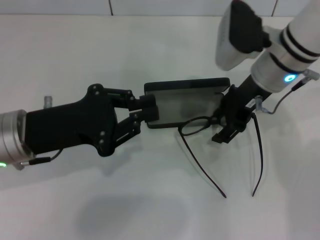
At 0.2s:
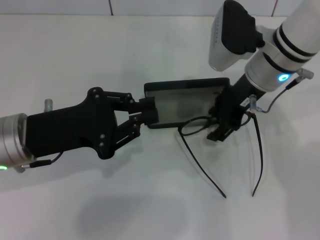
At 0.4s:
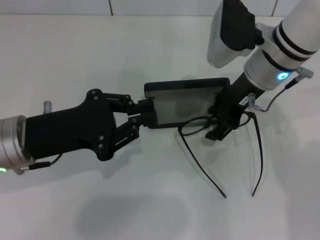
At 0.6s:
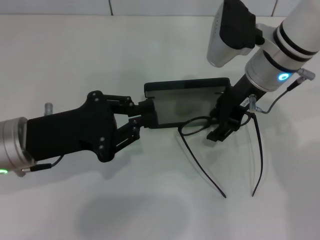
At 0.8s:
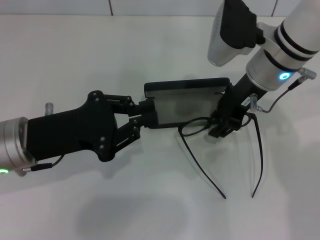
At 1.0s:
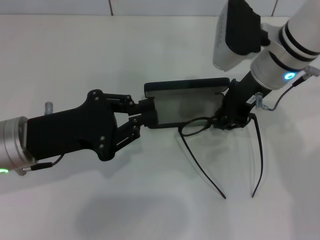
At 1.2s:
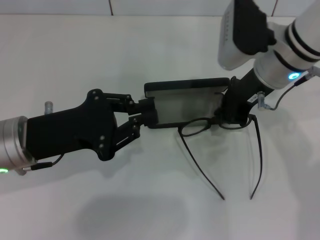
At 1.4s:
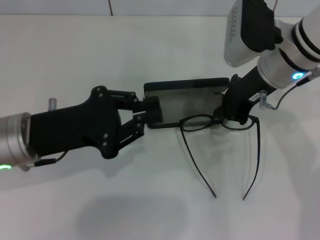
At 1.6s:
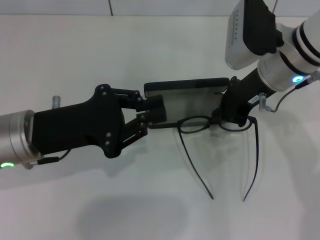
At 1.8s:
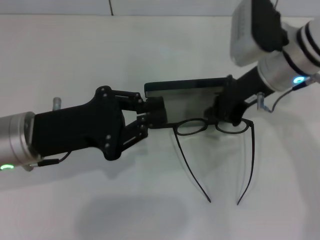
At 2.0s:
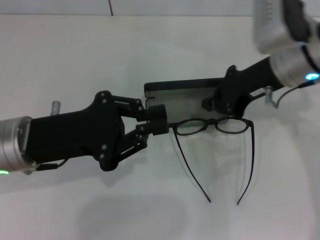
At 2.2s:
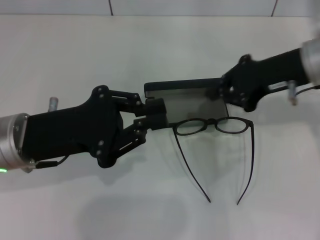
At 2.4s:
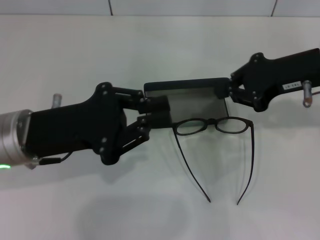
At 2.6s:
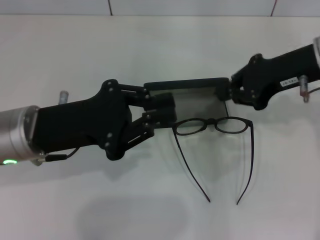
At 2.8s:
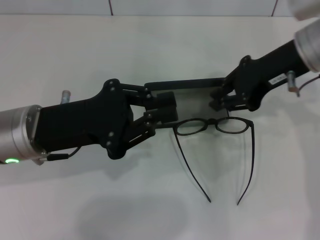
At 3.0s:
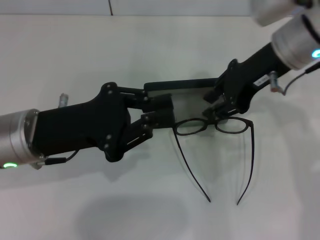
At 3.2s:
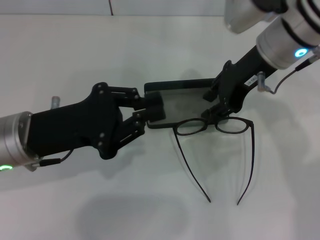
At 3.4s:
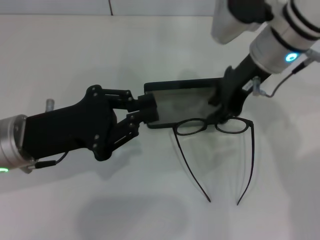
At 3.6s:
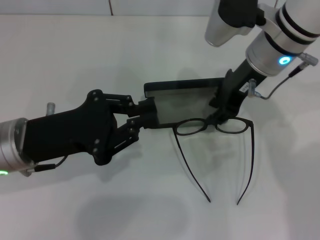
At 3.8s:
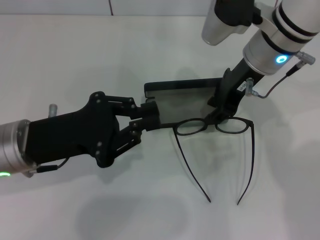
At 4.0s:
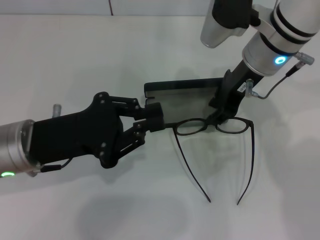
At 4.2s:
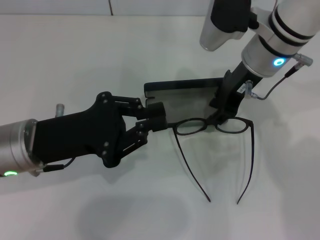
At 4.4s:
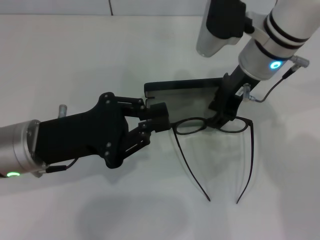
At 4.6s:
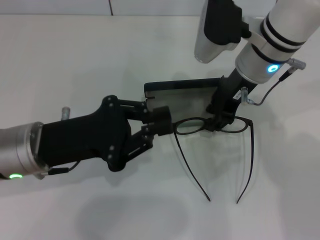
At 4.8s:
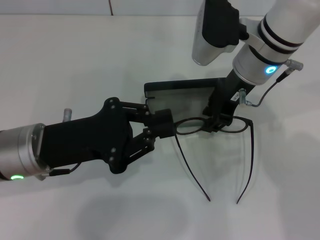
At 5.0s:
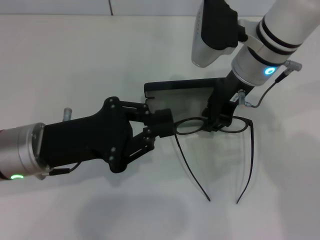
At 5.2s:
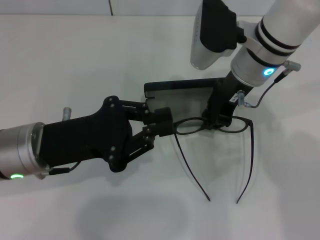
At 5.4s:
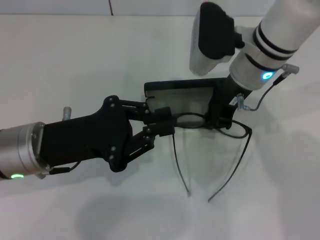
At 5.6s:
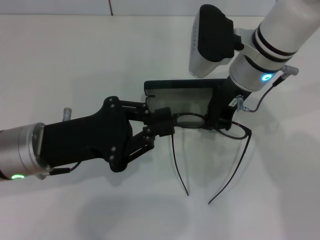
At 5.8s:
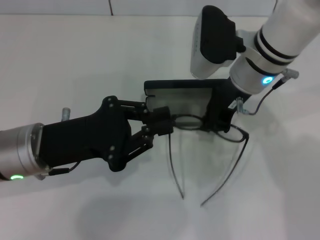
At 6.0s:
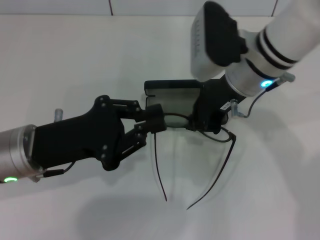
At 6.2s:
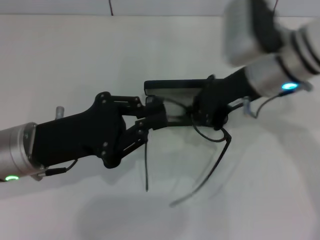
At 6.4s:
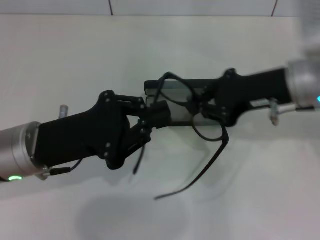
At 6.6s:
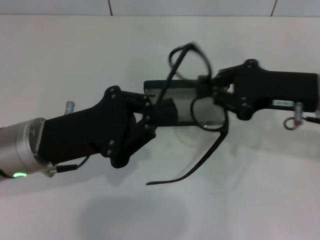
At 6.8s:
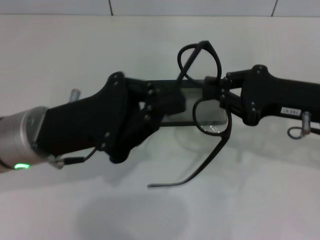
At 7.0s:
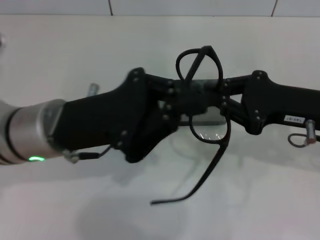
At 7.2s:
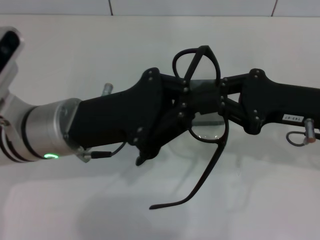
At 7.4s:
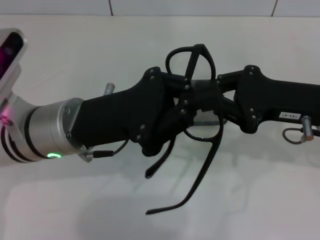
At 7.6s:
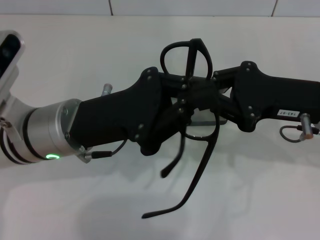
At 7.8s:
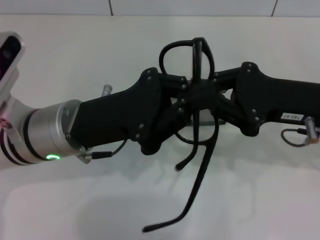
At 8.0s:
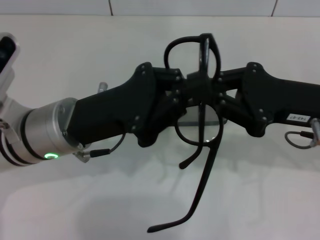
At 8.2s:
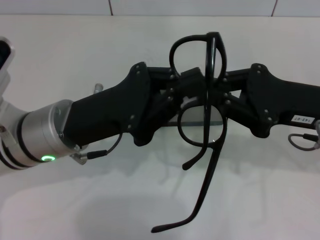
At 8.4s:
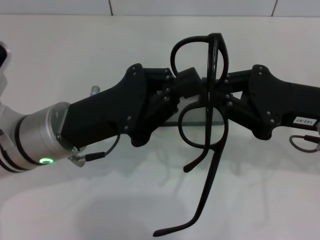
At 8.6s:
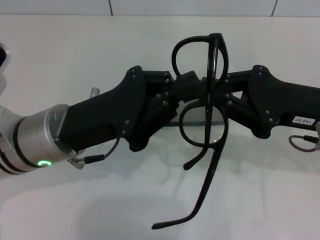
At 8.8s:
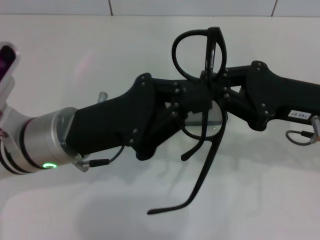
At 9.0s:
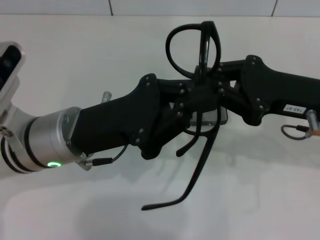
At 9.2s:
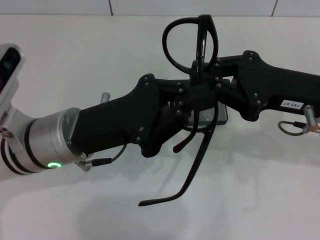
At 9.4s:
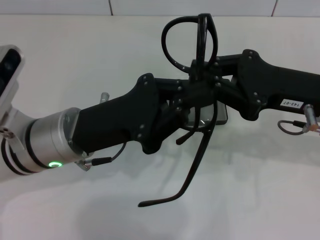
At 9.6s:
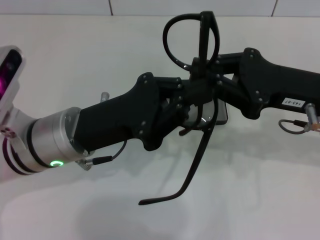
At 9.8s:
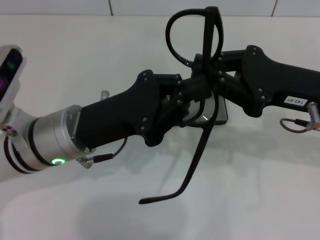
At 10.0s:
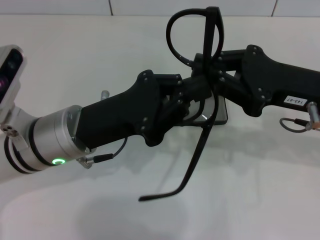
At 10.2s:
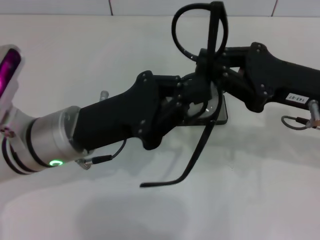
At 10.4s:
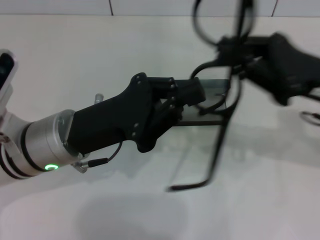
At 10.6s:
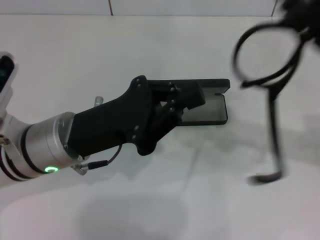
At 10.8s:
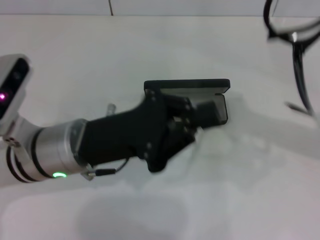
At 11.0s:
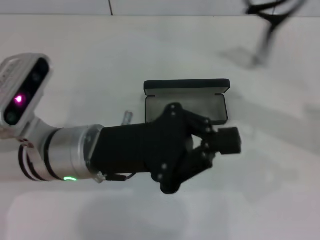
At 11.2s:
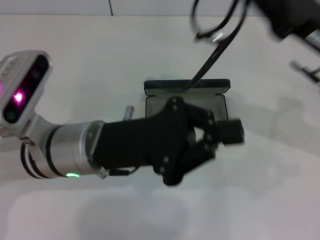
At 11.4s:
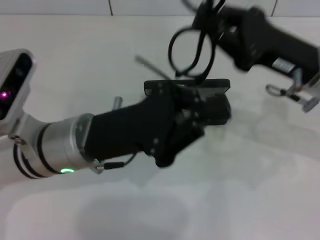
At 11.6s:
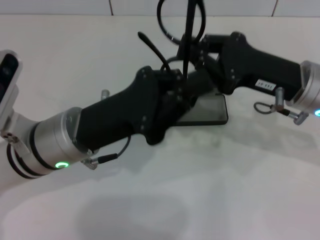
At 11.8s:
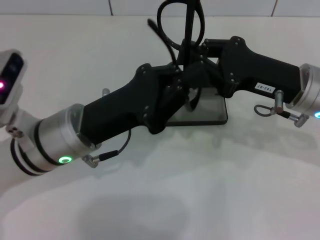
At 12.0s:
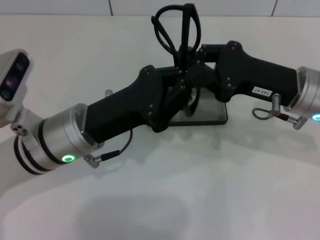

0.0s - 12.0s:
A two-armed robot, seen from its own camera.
0.0s - 1.6s: The right gripper closes up.
1.6s - 3.0s: The right gripper moves upward, about 5 cm, and travels to the right and back again, about 10 cm each way.
3.0s - 4.4s: The right gripper ends up approximately 5 cm from where it was.
4.4s - 6.0s: The right gripper closes its fingers.
6.0s - 7.6s: The right gripper heads to the right and backward, covering some 15 cm, while the left gripper is displaced to the right by some 5 cm.
7.6s - 9.0s: The grippers move only a little.
10.4s - 12.0s: The right gripper ends up about 5 cm from where it was.

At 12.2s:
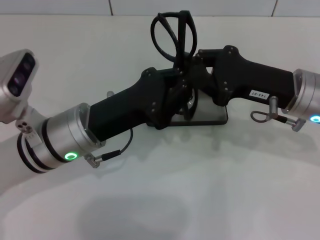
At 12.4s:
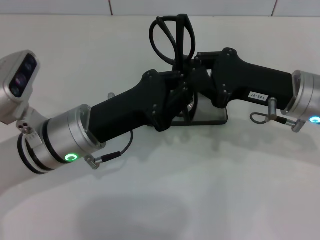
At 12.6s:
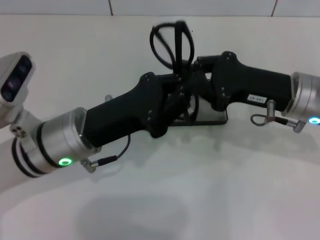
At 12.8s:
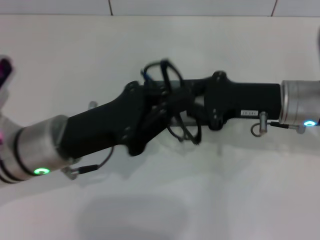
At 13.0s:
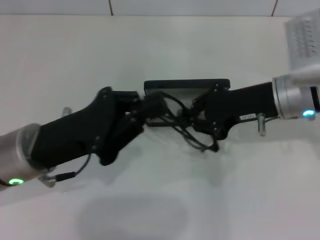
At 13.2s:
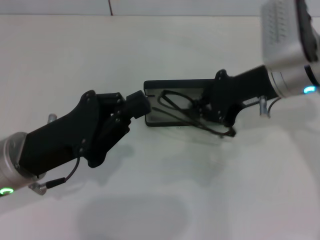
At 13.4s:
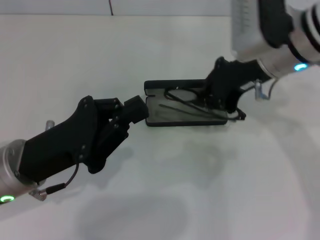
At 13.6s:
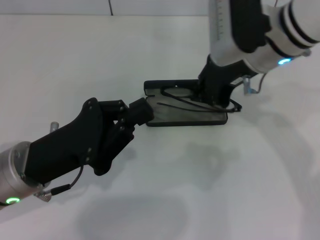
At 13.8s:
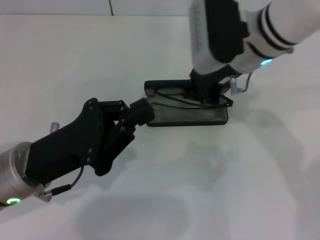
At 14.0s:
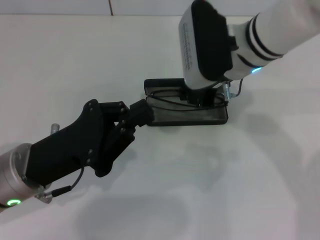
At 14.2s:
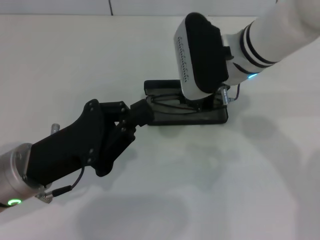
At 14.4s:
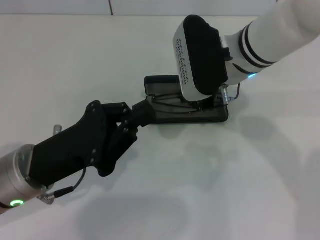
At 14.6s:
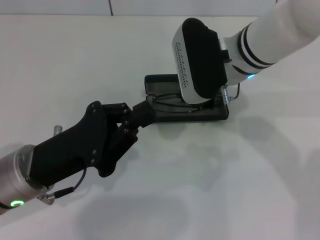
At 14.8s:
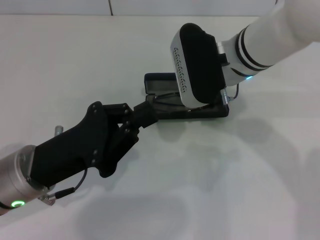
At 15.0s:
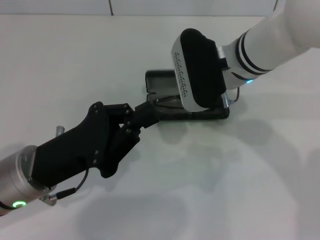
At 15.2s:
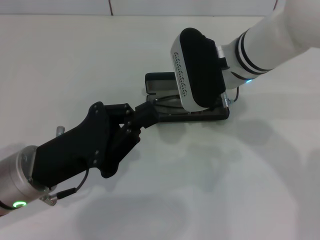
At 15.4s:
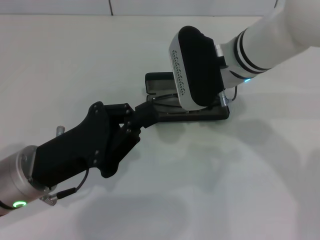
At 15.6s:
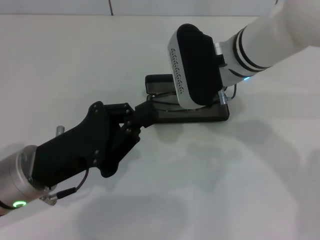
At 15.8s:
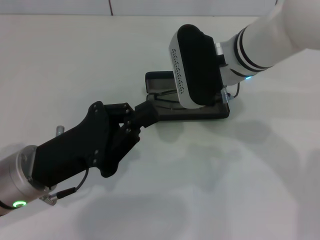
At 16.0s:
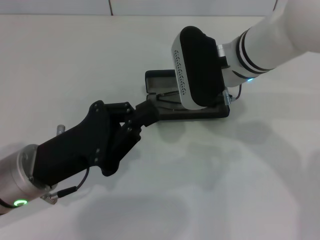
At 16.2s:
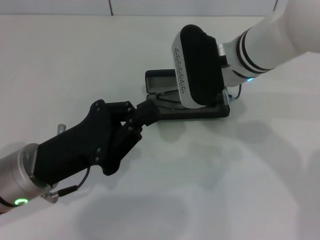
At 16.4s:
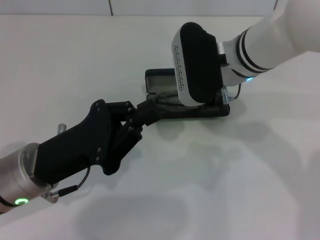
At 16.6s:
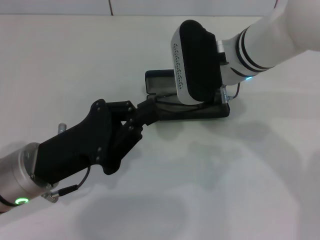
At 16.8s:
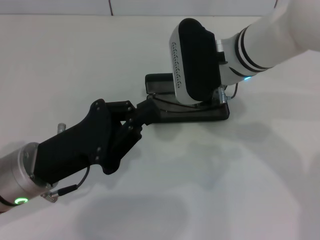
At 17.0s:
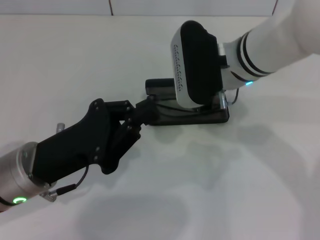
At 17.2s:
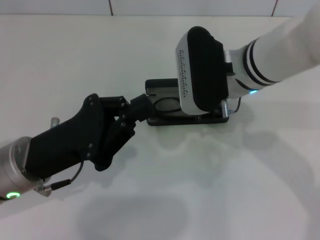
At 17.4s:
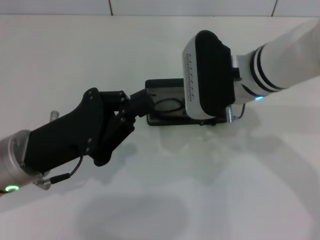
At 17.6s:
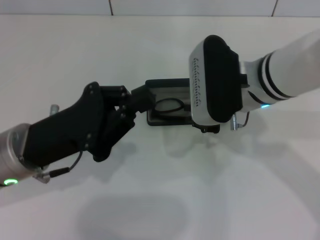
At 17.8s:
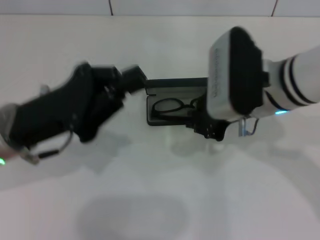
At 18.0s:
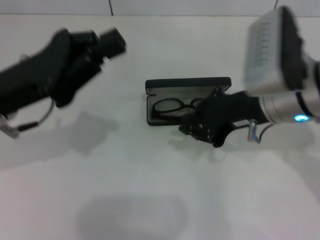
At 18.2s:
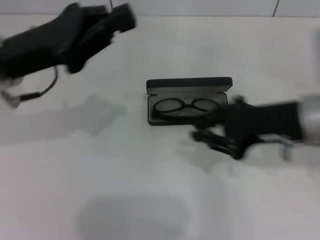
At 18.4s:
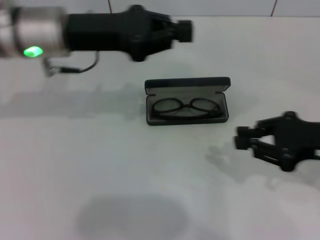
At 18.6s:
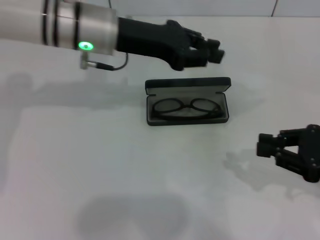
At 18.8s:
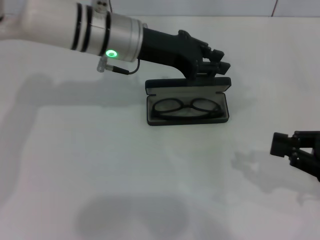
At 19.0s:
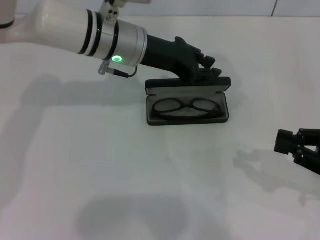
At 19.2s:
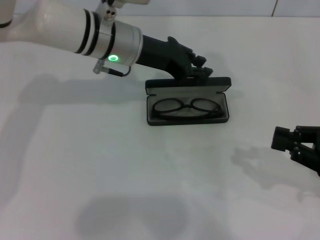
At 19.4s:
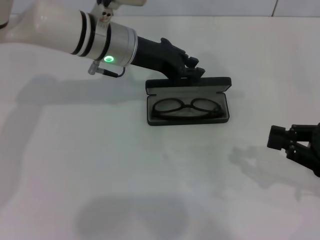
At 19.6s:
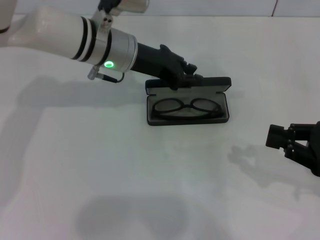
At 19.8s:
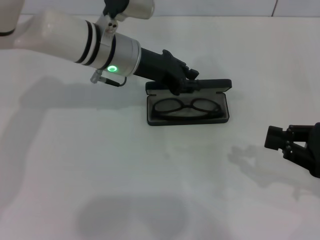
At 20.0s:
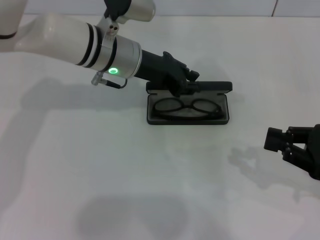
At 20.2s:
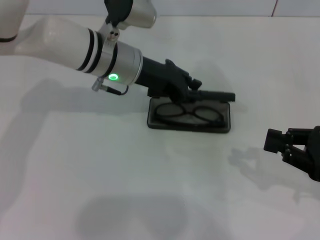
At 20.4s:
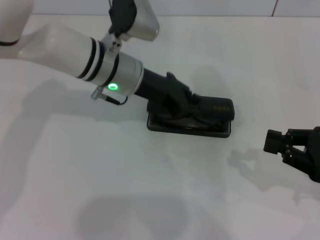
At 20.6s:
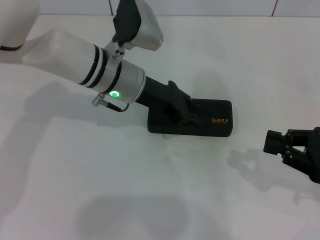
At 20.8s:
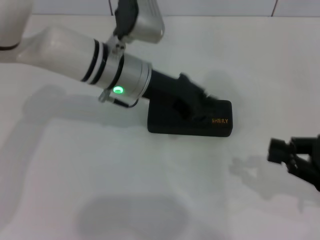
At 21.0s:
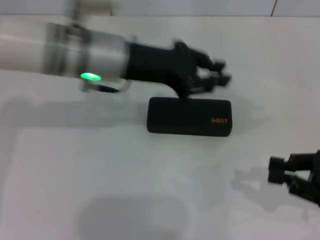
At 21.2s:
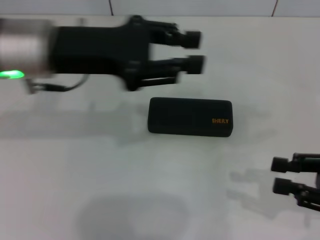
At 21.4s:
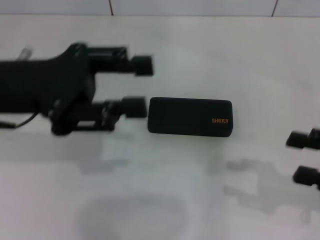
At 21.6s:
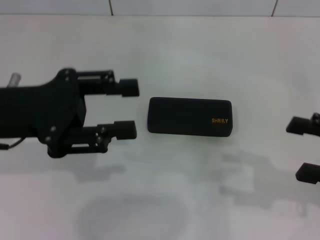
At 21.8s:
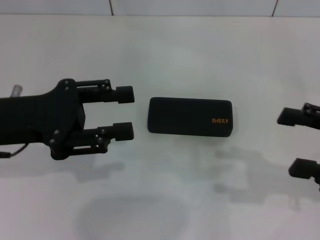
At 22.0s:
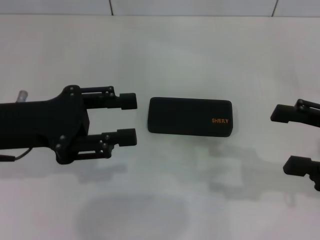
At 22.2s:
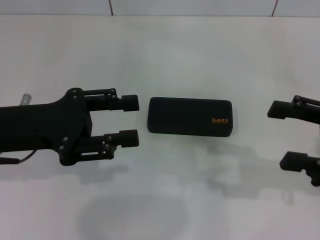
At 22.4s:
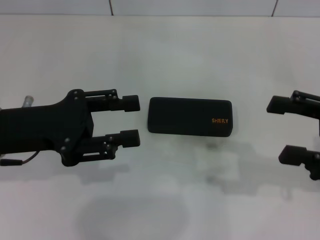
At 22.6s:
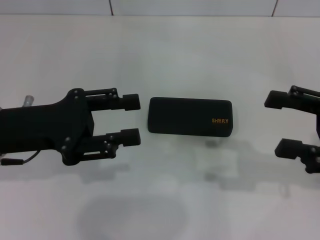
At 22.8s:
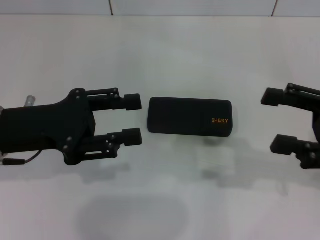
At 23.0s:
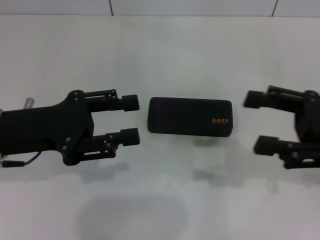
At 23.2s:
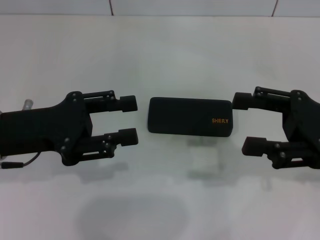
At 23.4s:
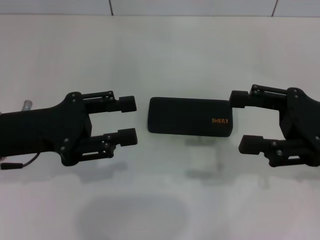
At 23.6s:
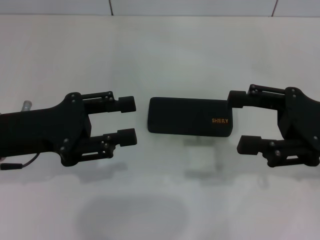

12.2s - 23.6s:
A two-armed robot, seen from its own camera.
Step, 12.6s - 17.2s: Put the glasses into the case with your right hand.
Step, 17.4s - 20.4s: Close the glasses case with your left hand.
12.2s - 13.6s: The left gripper moves to the left and backward, approximately 10 cm. Meanwhile the right gripper moves upward, to the left and forward, some 10 cm.
13.6s - 15.0s: The right gripper shifts by some 5 cm.
15.0s - 16.4s: Both grippers stay about where they are.
16.4s - 17.8s: The left gripper shifts by approximately 5 cm. The right gripper goes some 5 cm backward.
17.8s - 19.4s: The right gripper heads to the right and backward, covering roughly 20 cm. Meanwhile the left gripper heads forward and to the right, covering roughly 20 cm, and opens its fingers.
19.4s - 20.8s: The grippers move only a little.
20.8s - 22.2s: The right gripper travels upward by some 5 cm, and opens. Meanwhile the left gripper moves to the left and backward, approximately 20 cm, and opens its fingers.
22.2s - 23.6s: The right gripper shifts by some 5 cm.
